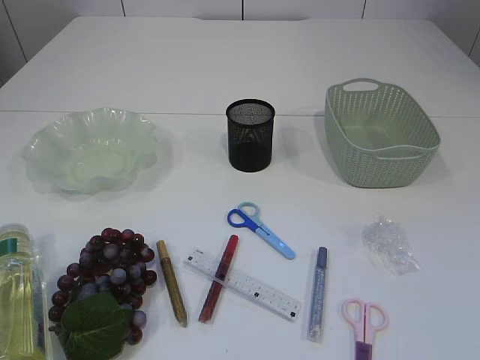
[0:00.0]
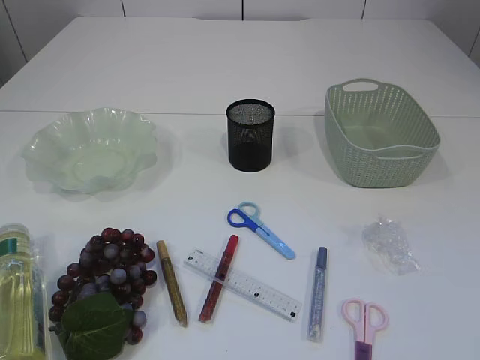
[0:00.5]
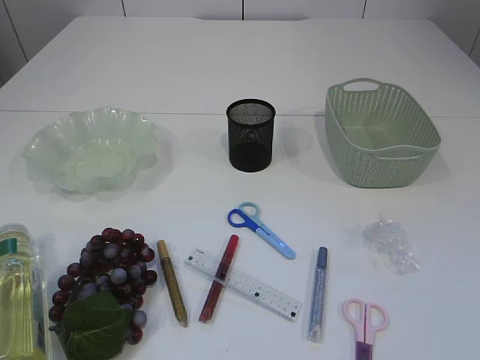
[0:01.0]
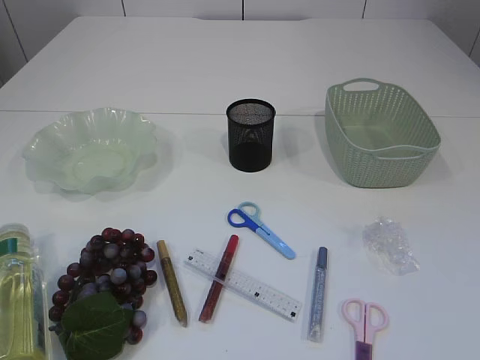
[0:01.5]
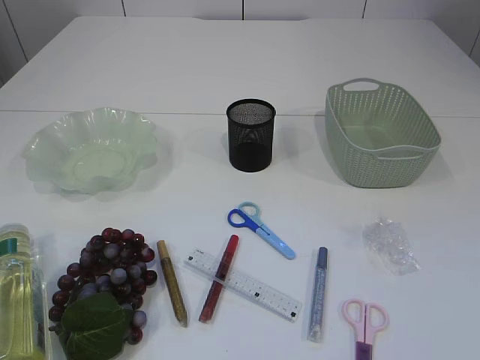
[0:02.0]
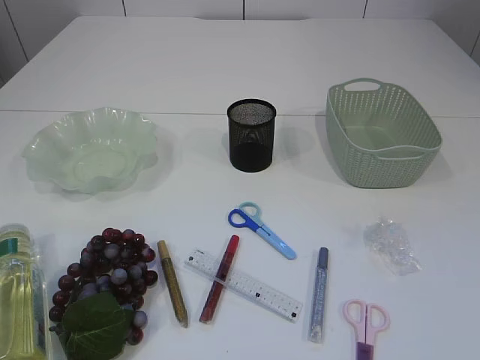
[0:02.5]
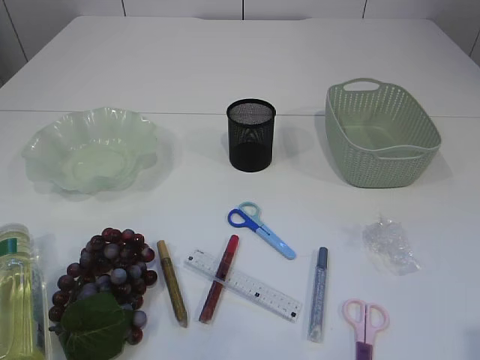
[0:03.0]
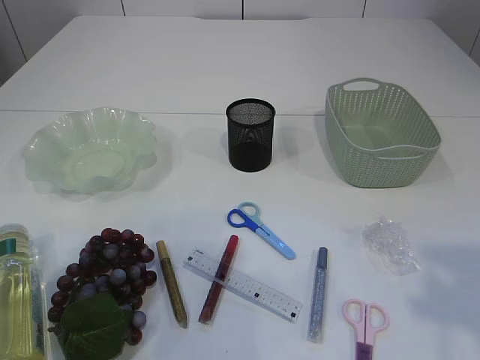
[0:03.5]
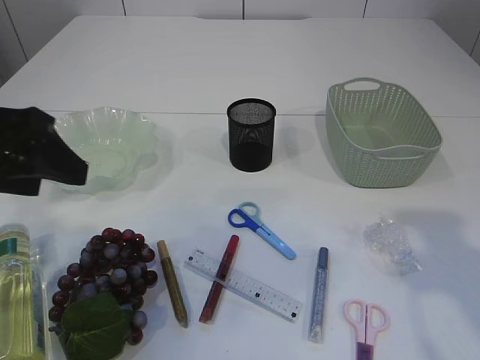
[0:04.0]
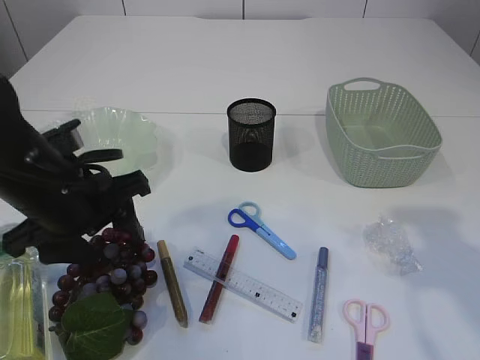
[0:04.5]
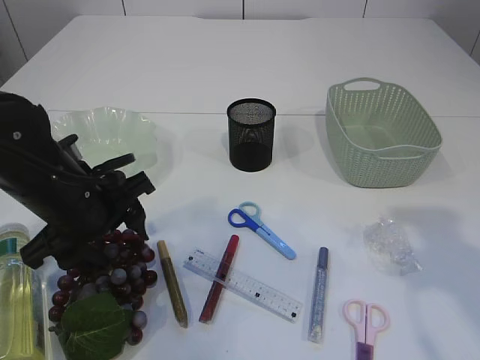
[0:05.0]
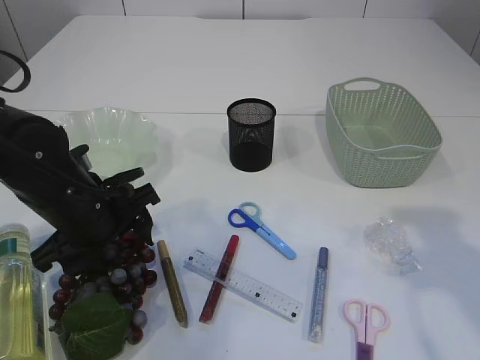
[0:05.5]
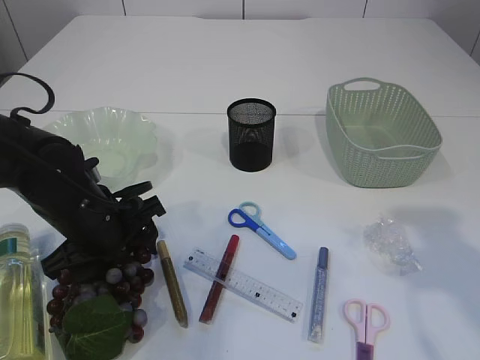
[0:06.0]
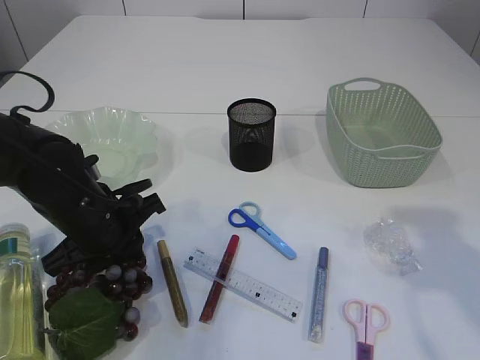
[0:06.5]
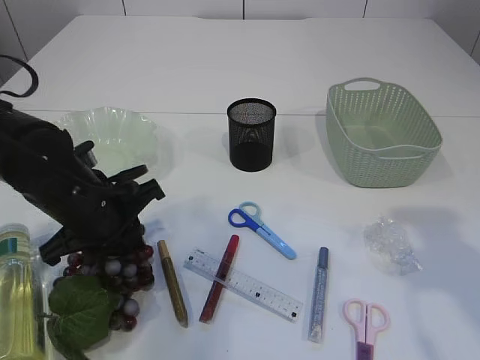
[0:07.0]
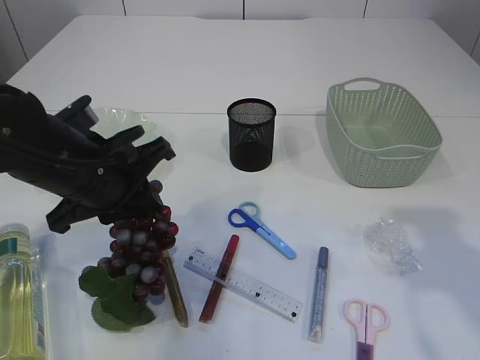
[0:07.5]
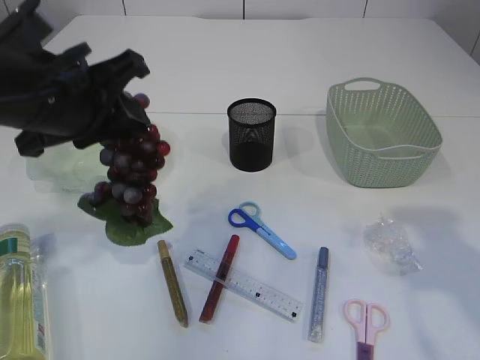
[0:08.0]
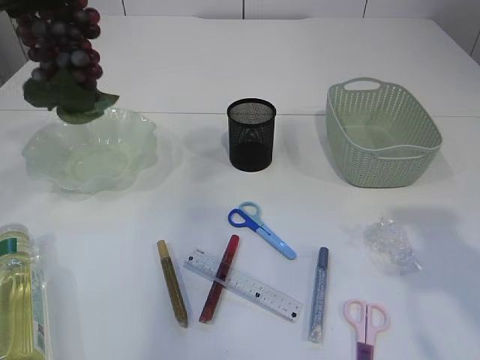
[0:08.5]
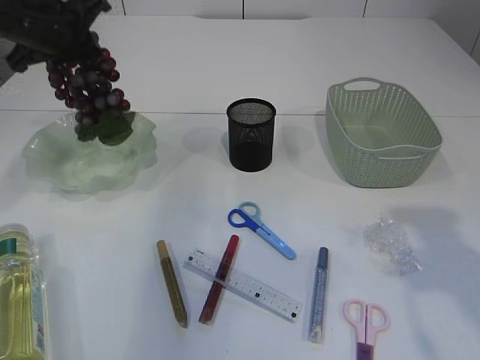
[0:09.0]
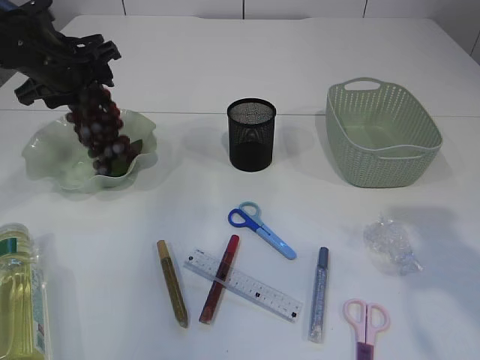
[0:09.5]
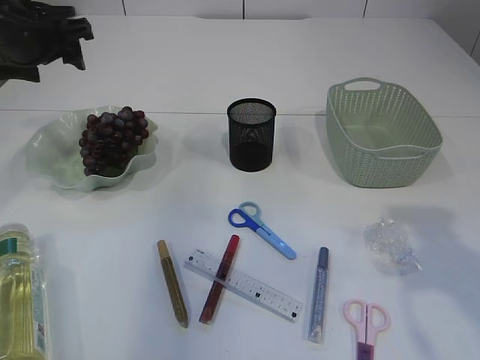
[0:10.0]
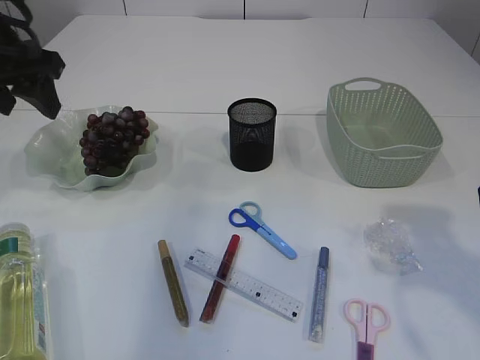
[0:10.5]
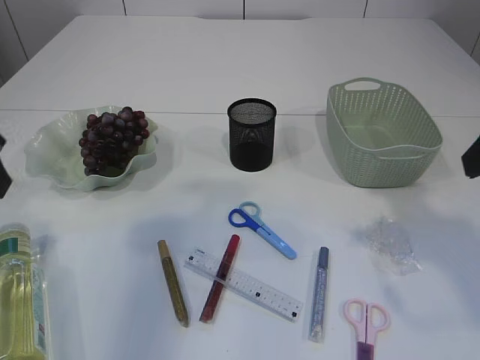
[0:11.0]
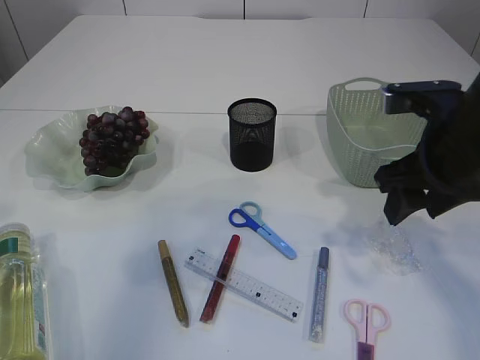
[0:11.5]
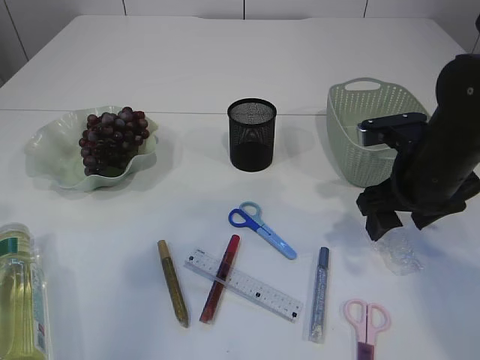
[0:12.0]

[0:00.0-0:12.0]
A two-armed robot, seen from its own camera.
Step, 0:00.0 to 0:07.5: Pick up the grapes.
Step, 0:08.0 to 0:10.0: Place the grapes in the plate.
0:02.0 to 0:04.0: The left gripper shifts about 25 cm forward and to the right; the right gripper moves forward, roughly 20 cm.
0:04.0 to 0:06.0: The left gripper shifts about 15 cm downward.
0:06.0 to 0:08.0: The left gripper heads upward, covering some 15 cm, and closes its fingers.
0:08.0 to 0:10.0: The left gripper moves forward and to the left, roughly 15 cm, and opens up.
0:10.0 to 0:12.0: The left gripper heads backward, covering about 20 cm, while the right gripper heads forward, downward and to the left, covering roughly 20 cm.

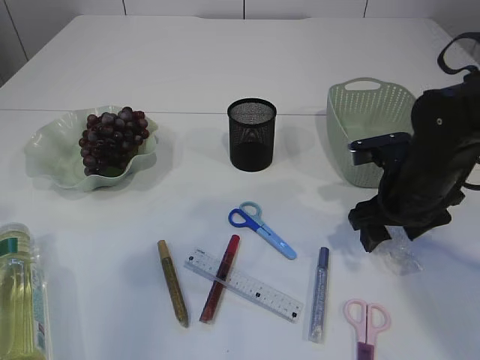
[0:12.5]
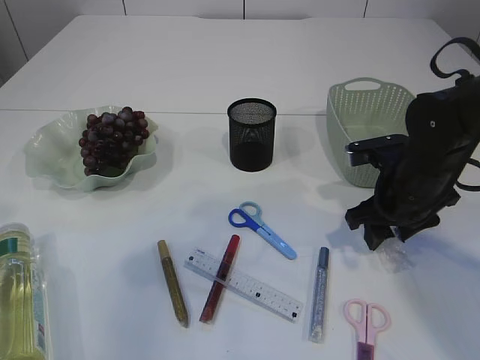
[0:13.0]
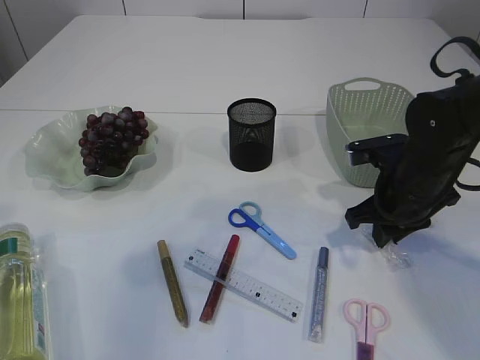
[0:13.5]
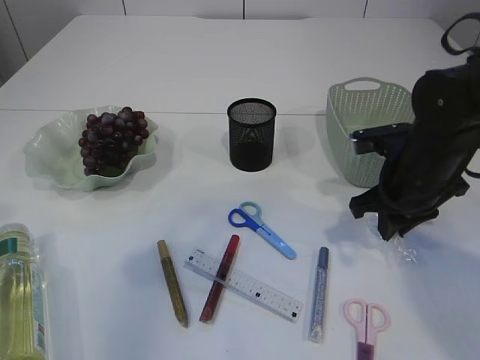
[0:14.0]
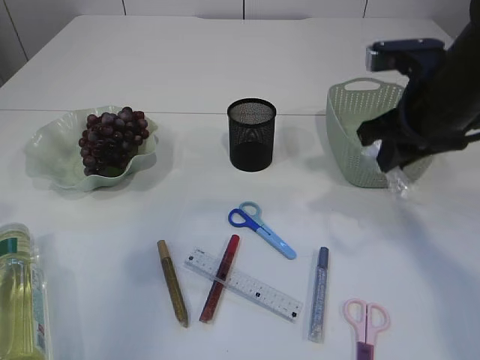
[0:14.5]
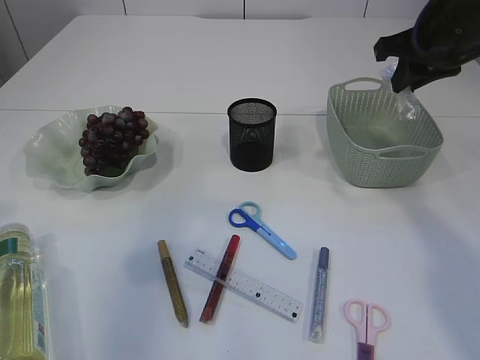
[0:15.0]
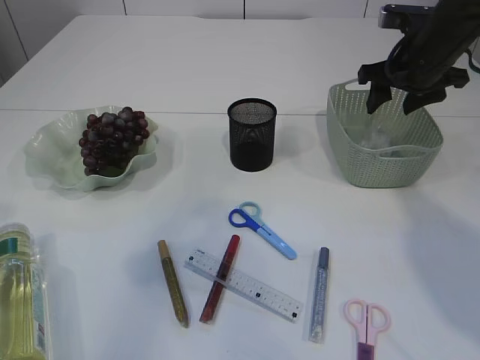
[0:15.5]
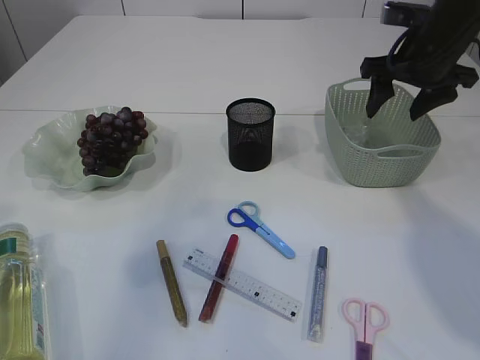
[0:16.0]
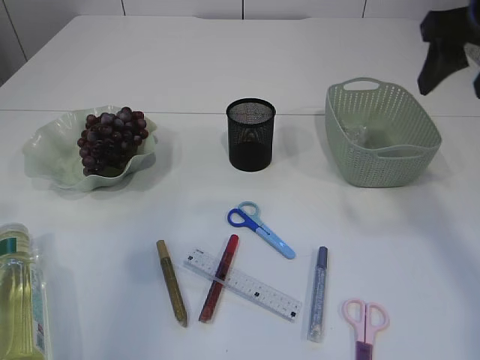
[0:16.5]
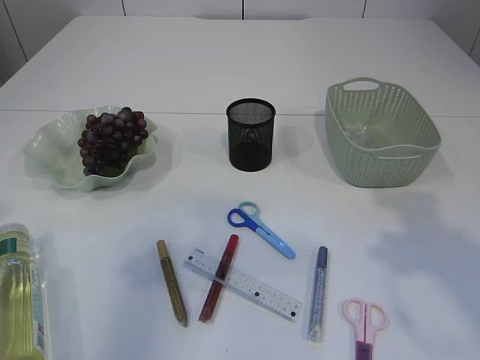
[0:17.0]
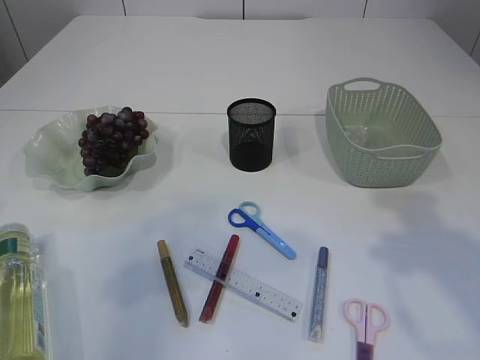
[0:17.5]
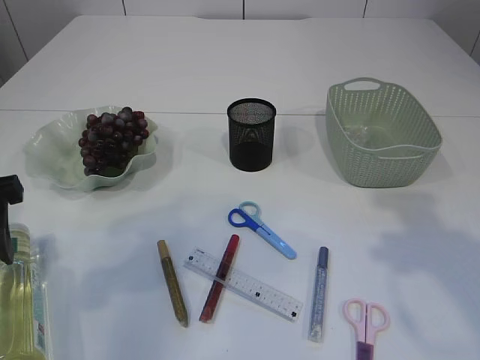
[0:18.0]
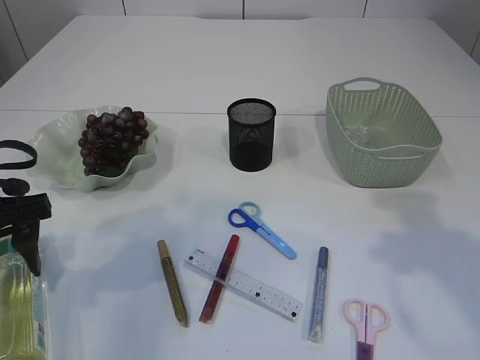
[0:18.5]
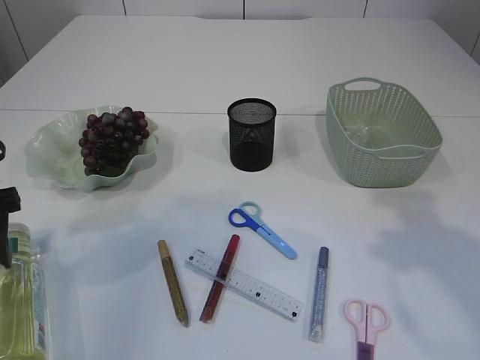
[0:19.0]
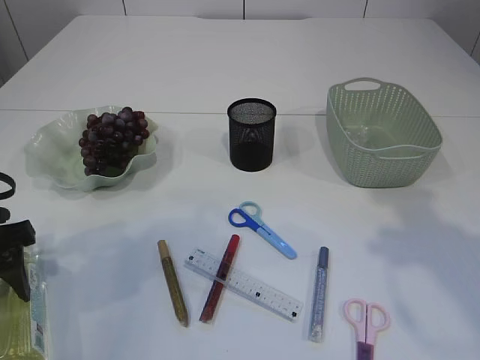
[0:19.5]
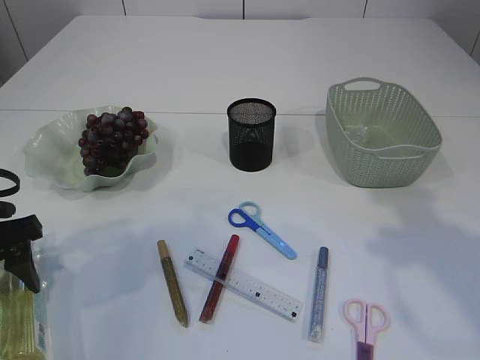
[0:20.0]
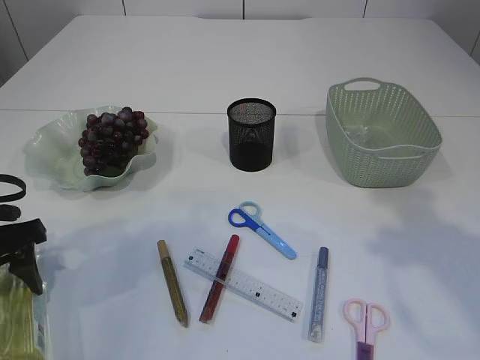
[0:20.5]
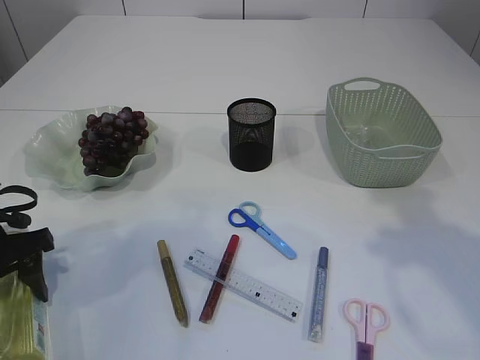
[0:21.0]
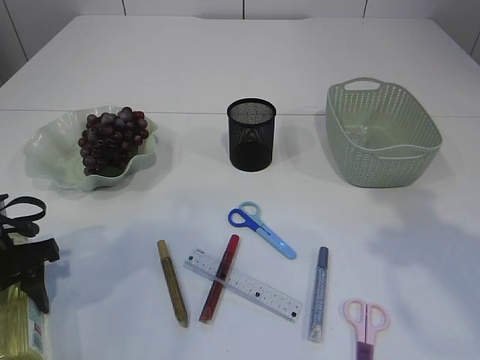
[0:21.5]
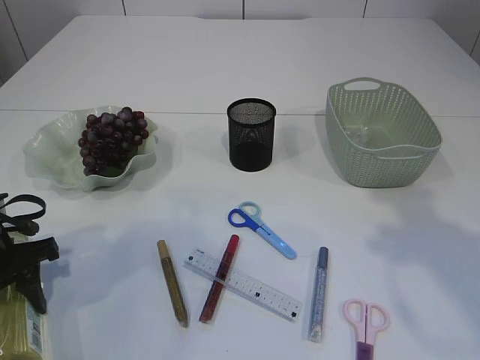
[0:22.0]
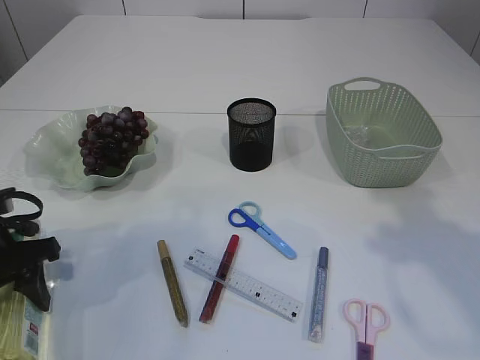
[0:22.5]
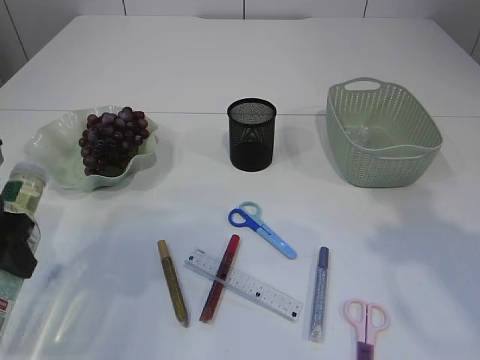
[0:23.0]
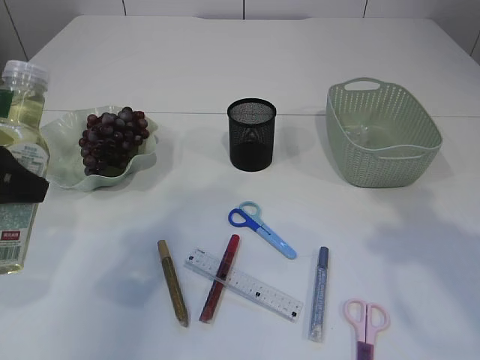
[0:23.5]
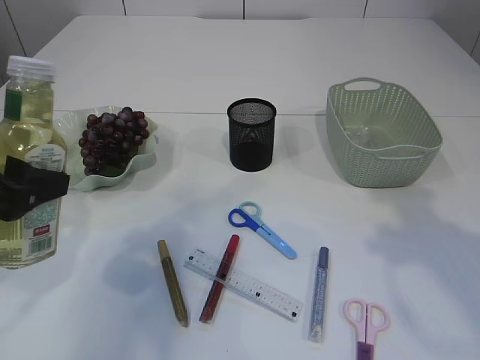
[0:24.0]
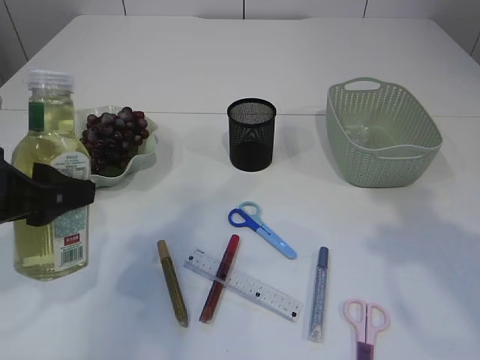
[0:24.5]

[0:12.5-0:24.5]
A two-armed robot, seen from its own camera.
Step, 0:14.5 to 0:15.5: Place the plastic in the basket.
Step, 0:16.0 to 0:23.0: Pick up the bottle with the left arm.
0:12.5 to 0:14.5: The right gripper heads upward, covering approximately 10 cm, and closes up.
0:14.5 to 0:16.5: The right gripper travels upward by about 10 cm, travels forward and back again, about 15 cm each way, and opens up.
0:16.5 to 0:18.5: The right gripper shifts some 15 cm backward, while the left gripper moves downward and forward, approximately 15 cm, and opens.
0:18.5 to 0:20.5: The grippers stay close to where they were, moving slightly.
0:20.5 to 0:22.5: The grippers move only a little.
0:22.5 to 0:24.5: The left gripper moves upward, about 10 cm.

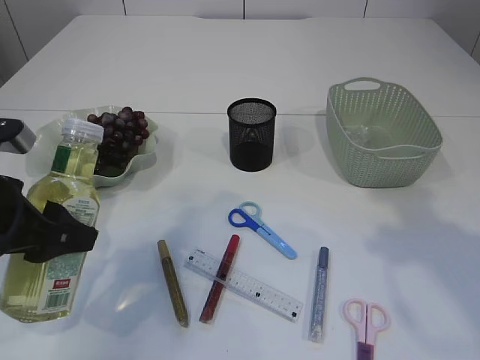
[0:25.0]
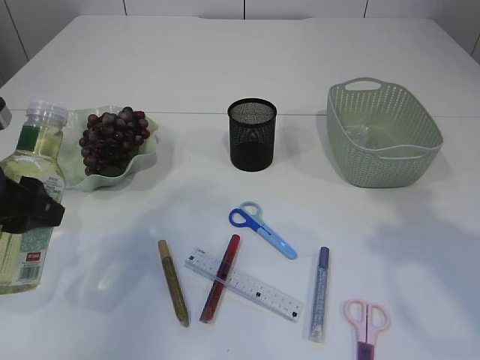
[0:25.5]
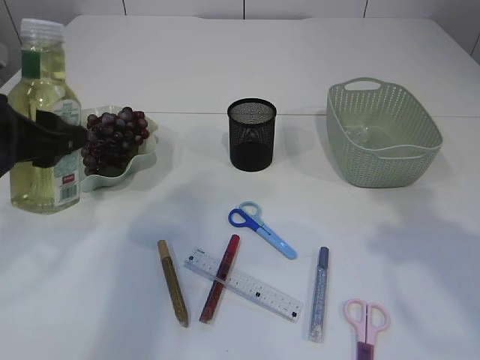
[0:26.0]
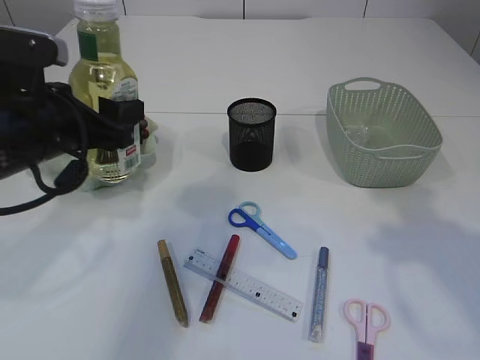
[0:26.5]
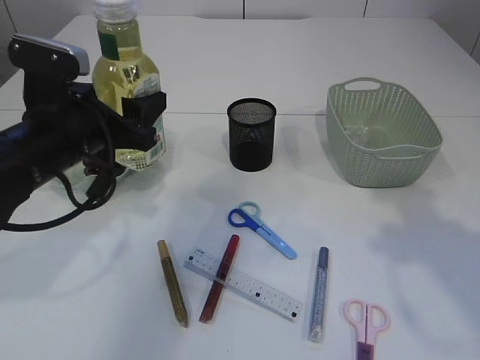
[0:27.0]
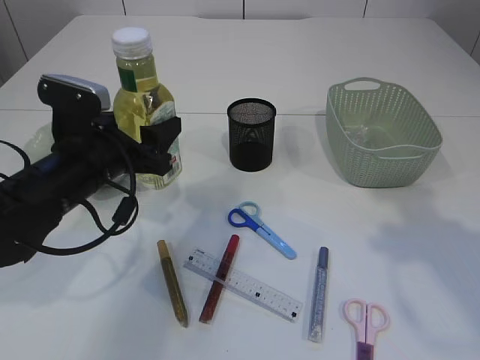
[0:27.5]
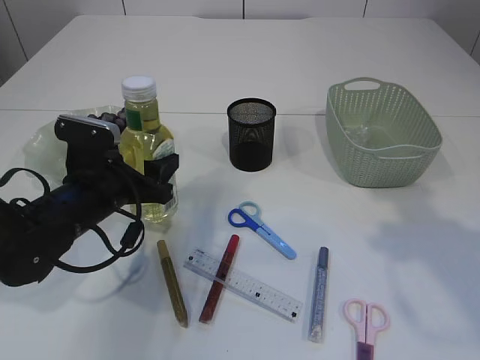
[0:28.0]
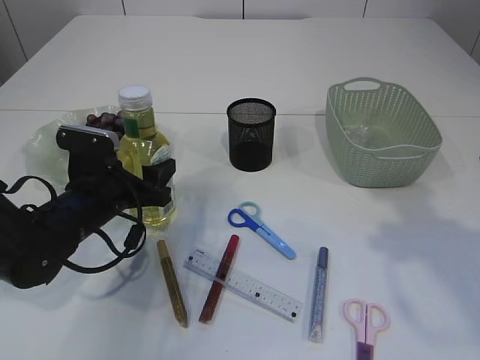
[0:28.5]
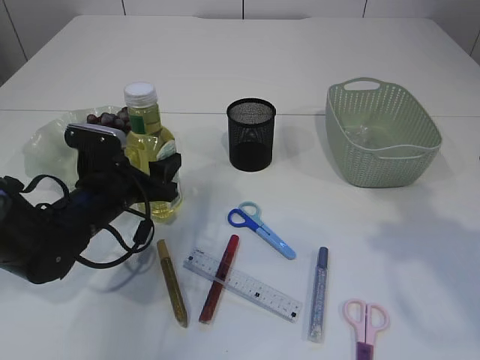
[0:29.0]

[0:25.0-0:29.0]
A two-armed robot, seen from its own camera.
0:25.0 to 0:27.0: The left gripper heads forward and to the right, covering about 10 cm.
0:27.0 to 0:29.0: The left gripper shifts roughly 10 cm downward.
